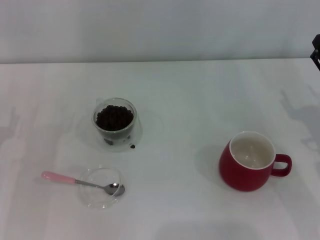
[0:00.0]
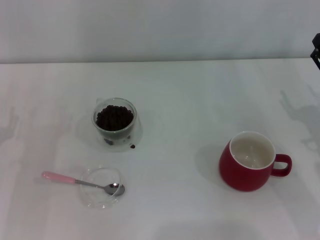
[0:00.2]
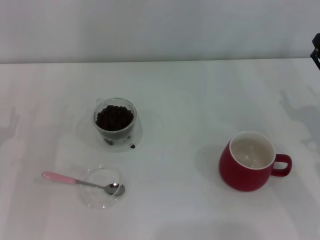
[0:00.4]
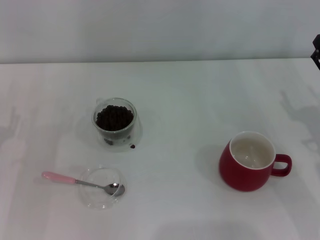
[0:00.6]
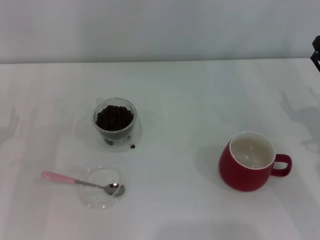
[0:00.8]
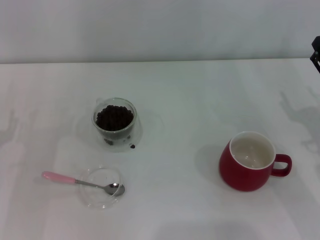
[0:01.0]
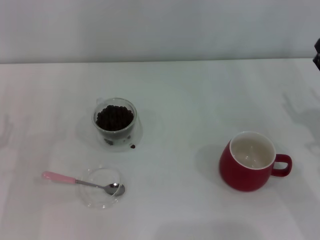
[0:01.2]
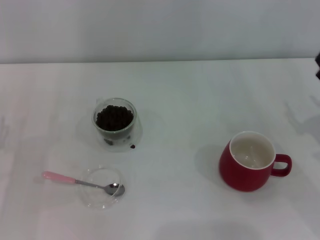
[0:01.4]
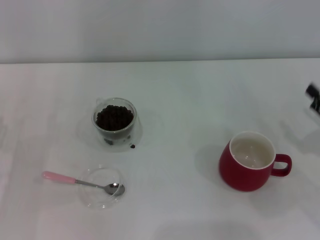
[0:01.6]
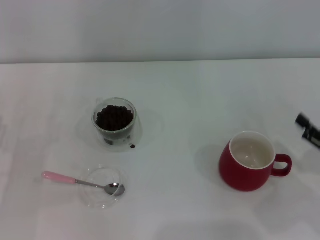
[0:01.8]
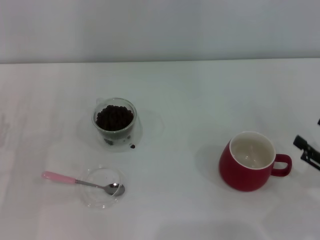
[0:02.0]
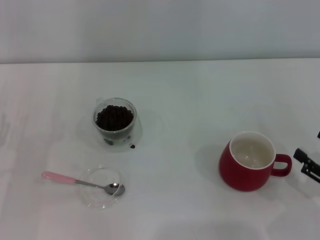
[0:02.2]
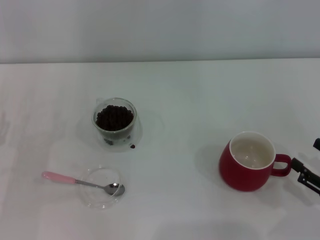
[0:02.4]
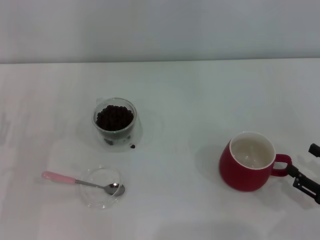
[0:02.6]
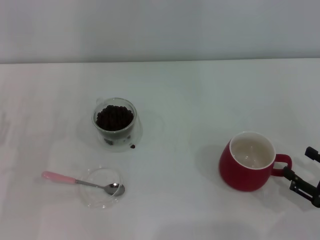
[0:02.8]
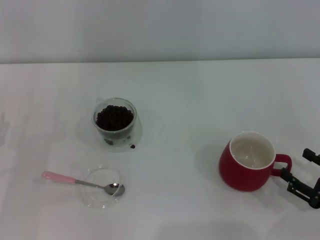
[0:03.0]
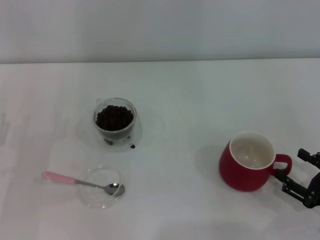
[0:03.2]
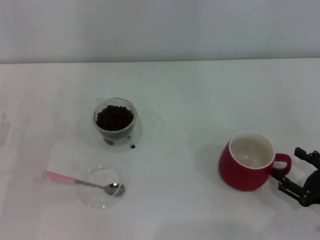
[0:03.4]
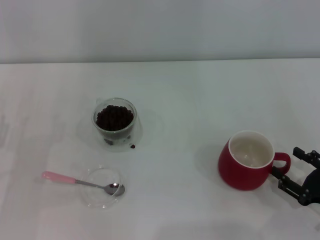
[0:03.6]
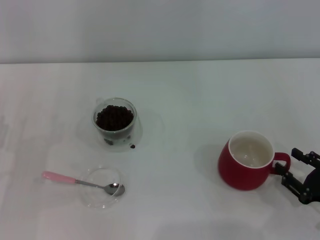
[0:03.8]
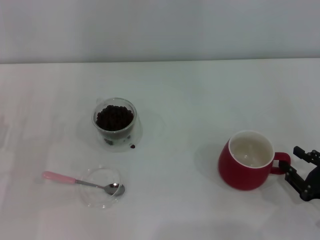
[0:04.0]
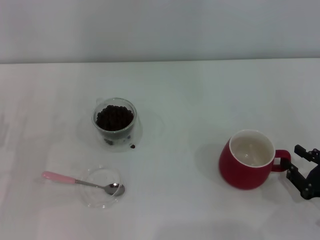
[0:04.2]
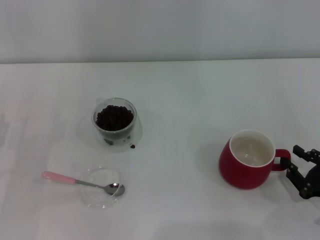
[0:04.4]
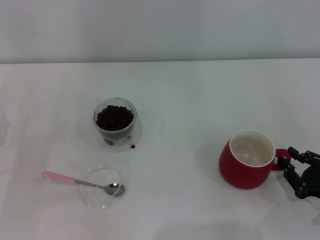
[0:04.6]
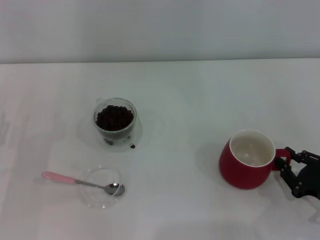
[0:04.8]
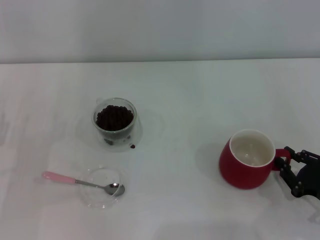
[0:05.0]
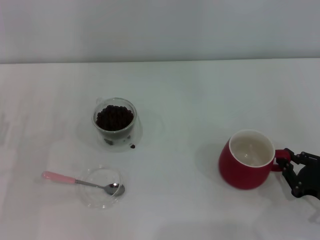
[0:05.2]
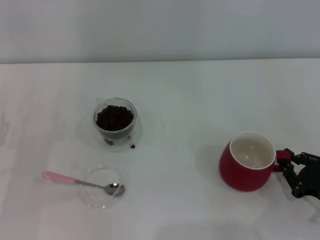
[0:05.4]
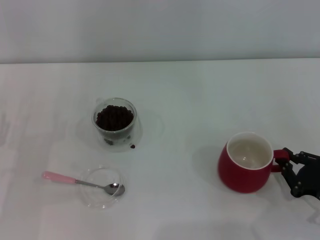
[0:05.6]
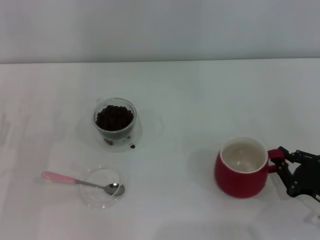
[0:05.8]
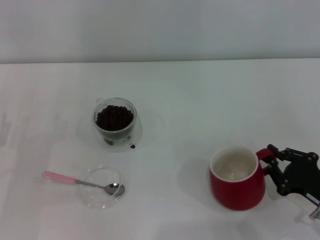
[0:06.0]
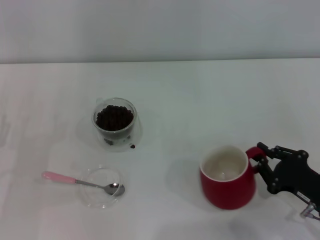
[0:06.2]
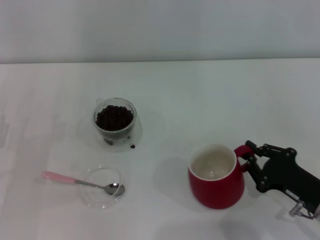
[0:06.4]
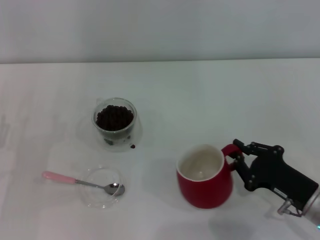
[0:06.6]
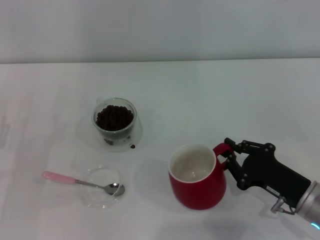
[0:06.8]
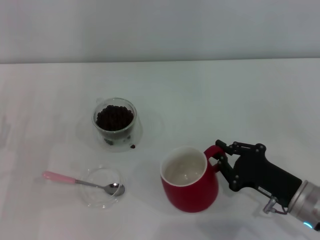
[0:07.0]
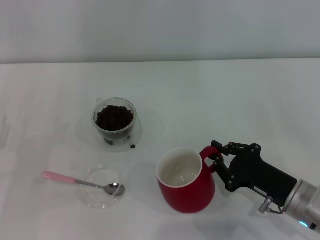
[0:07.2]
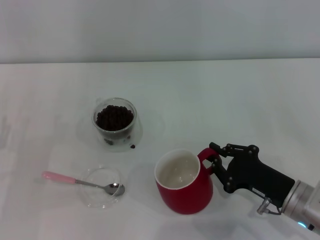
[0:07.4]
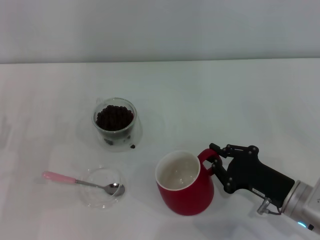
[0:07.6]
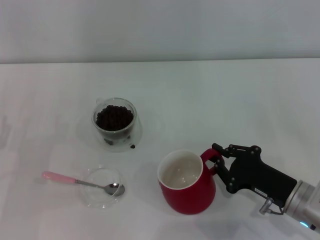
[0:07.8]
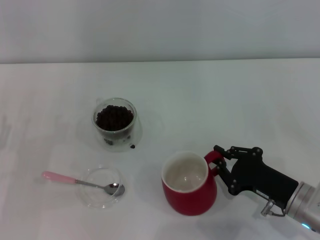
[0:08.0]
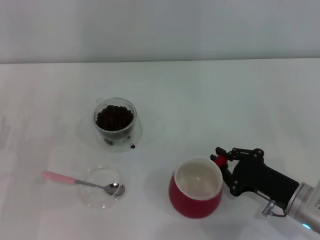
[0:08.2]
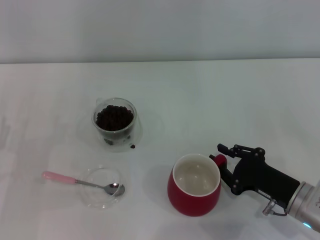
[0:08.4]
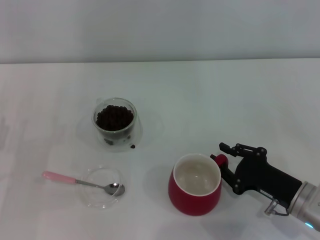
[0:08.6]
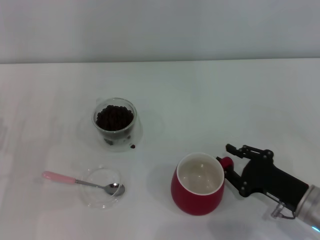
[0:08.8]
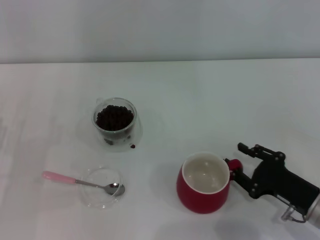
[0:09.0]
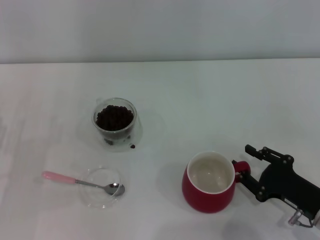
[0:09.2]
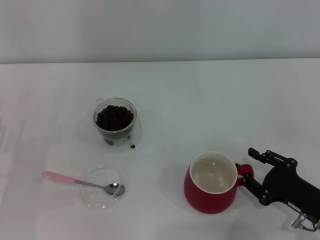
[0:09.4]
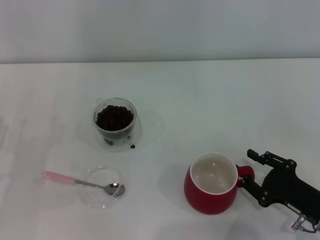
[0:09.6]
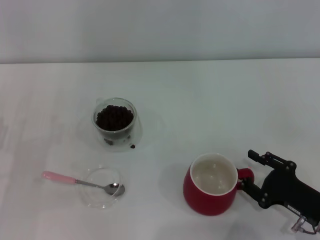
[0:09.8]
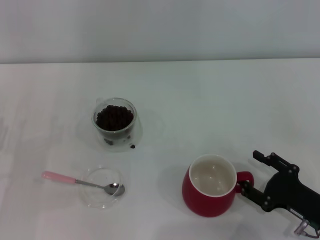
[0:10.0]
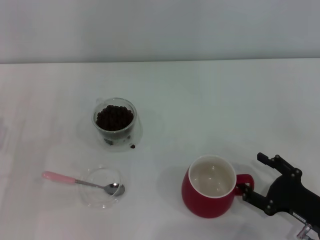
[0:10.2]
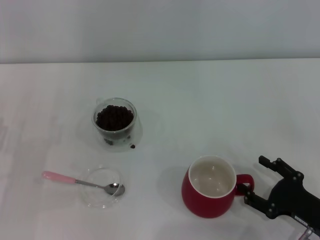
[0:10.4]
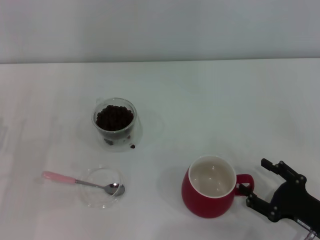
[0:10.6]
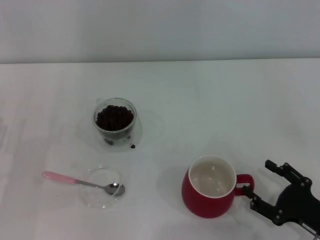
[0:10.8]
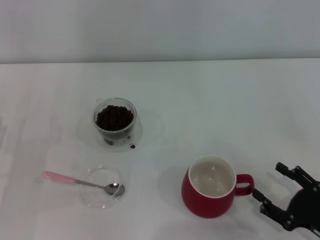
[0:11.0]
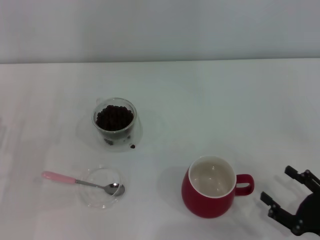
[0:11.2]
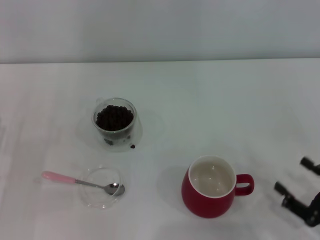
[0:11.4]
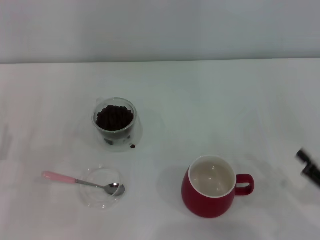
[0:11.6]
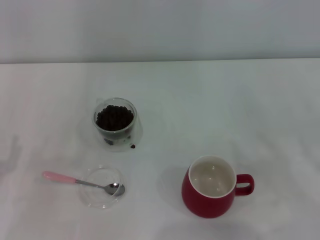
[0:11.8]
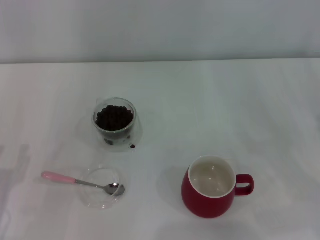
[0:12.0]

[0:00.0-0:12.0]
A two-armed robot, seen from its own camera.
Task of the whole recording: Use a pink spoon to take out the coffee beans from the glass and pour them into the red cup.
Step, 0:00.0 to 0:11.0: Move the cup to the center of view with the left gripper.
0:00.0 to 0:01.6: The right gripper changes place by about 5 cm.
0:01.6 to 0:03.0: The right gripper goes about 5 cm backward.
0:03.0 to 0:04.4: The right gripper closes up.
0:04.4 to 0:06.0: The right gripper closes its fingers.
0:06.0 to 0:07.6: The right gripper is displaced to the left by about 5 cm.
0:07.6 to 0:09.0: There are only small adjustments of the grippers.
0:09.0 to 0:10.4: The right gripper opens up.
0:10.4 to 0:12.0: The right gripper heads to the right and upward, covering roughly 10 cm.

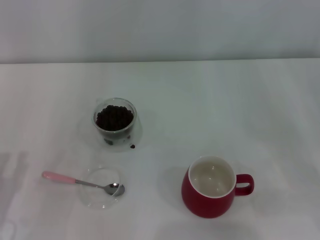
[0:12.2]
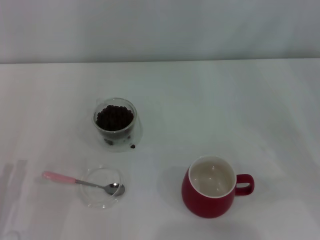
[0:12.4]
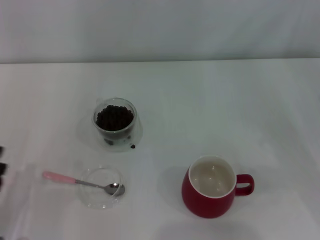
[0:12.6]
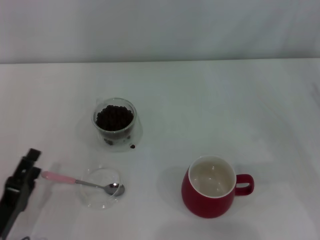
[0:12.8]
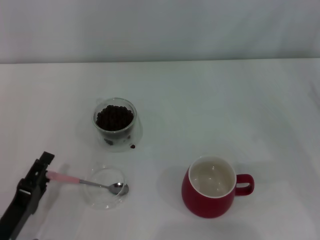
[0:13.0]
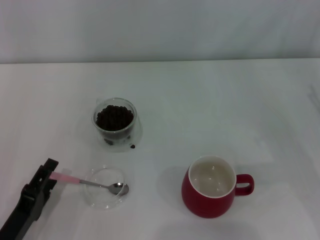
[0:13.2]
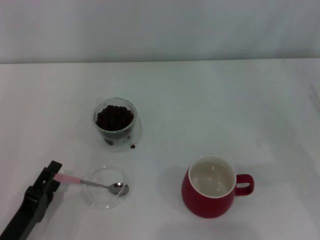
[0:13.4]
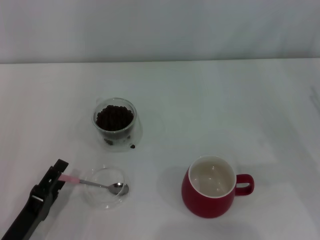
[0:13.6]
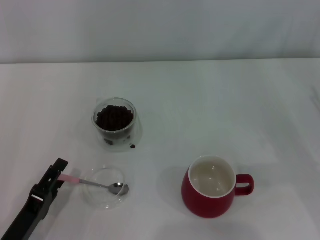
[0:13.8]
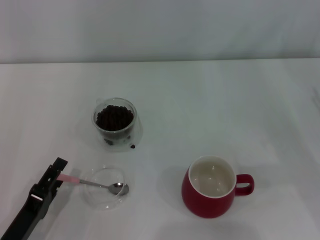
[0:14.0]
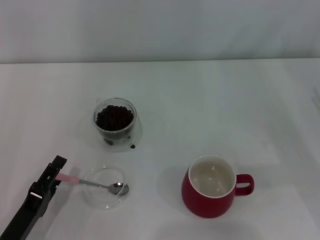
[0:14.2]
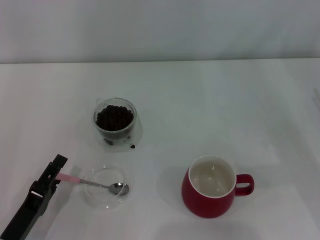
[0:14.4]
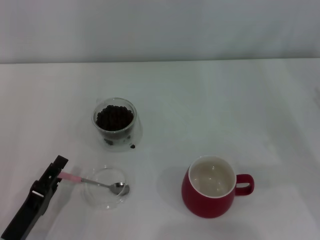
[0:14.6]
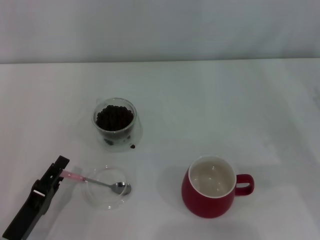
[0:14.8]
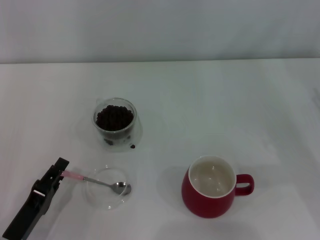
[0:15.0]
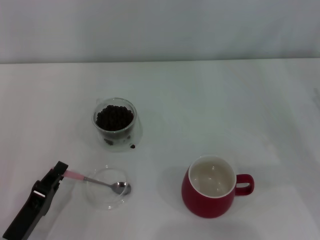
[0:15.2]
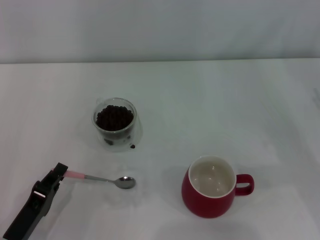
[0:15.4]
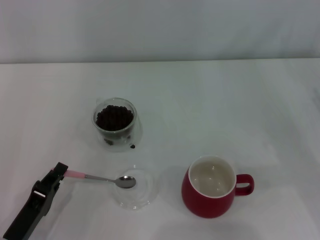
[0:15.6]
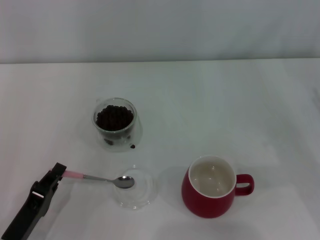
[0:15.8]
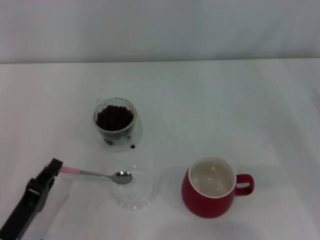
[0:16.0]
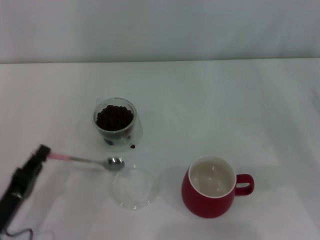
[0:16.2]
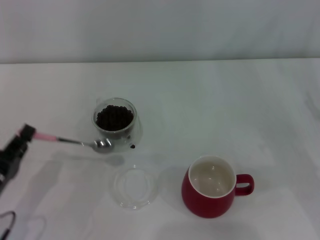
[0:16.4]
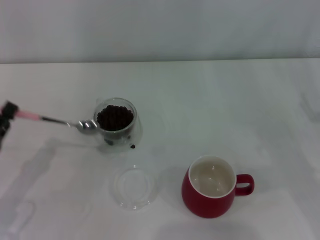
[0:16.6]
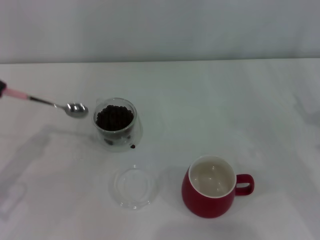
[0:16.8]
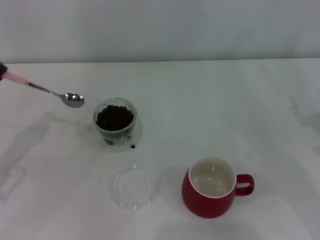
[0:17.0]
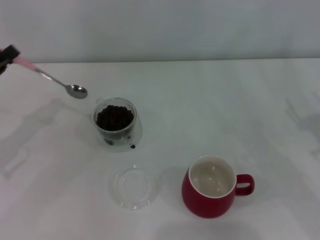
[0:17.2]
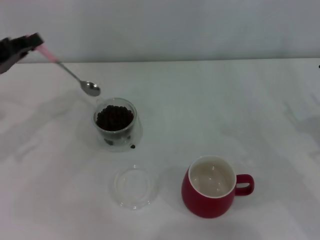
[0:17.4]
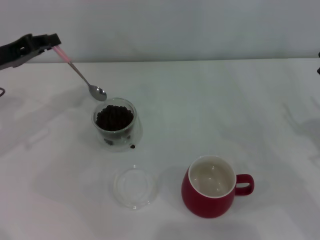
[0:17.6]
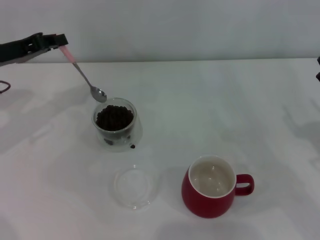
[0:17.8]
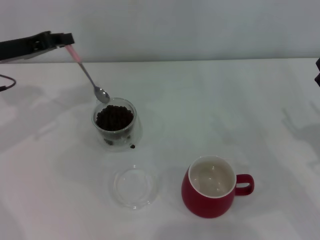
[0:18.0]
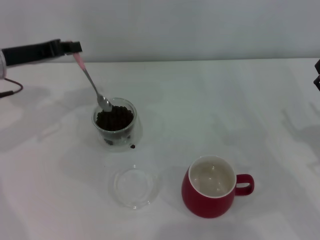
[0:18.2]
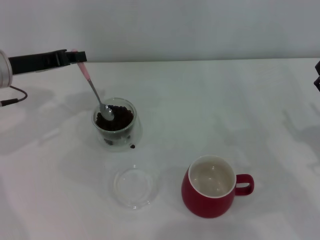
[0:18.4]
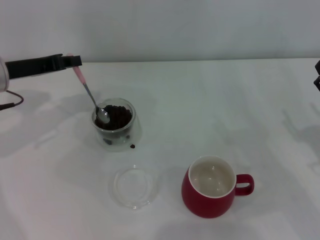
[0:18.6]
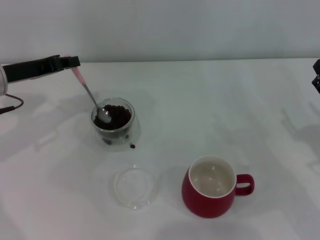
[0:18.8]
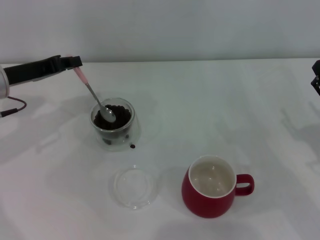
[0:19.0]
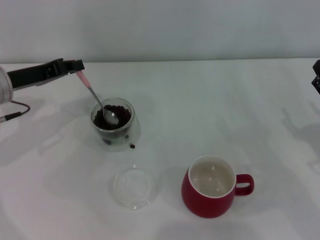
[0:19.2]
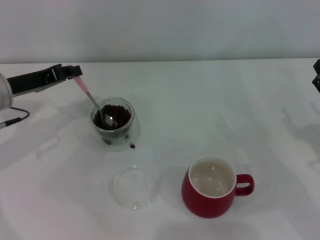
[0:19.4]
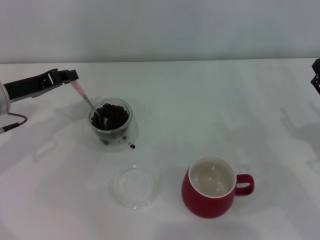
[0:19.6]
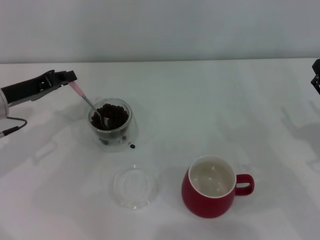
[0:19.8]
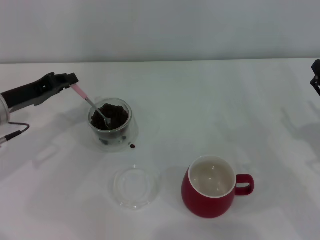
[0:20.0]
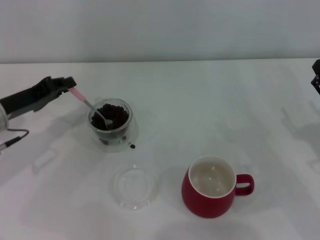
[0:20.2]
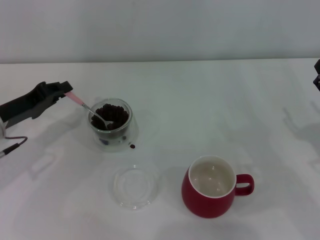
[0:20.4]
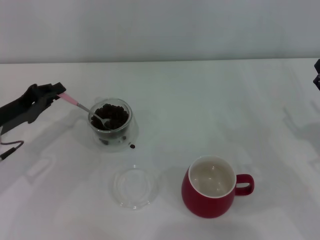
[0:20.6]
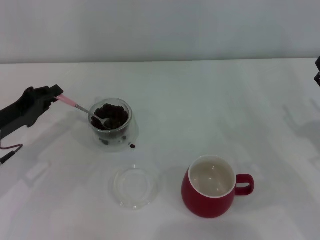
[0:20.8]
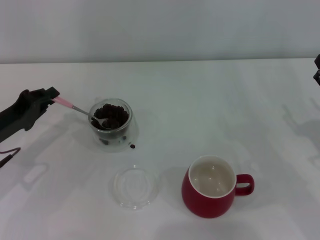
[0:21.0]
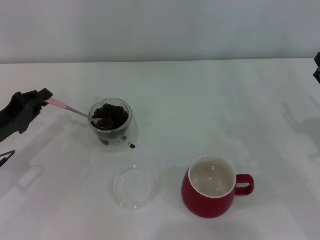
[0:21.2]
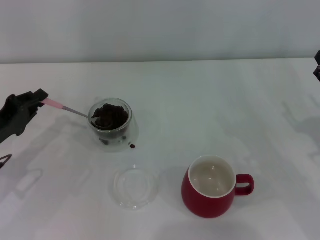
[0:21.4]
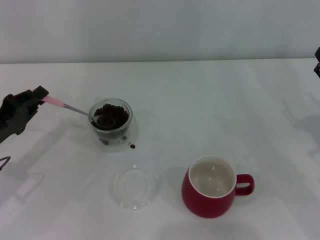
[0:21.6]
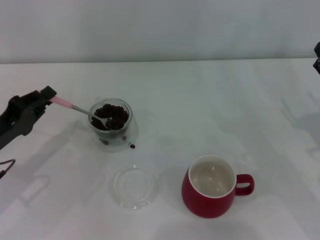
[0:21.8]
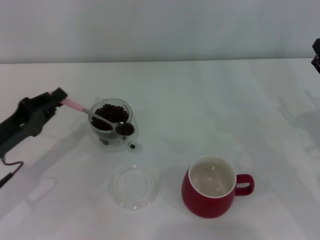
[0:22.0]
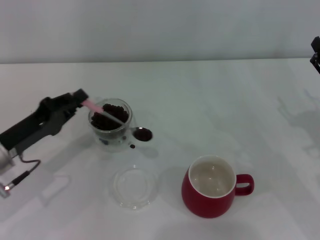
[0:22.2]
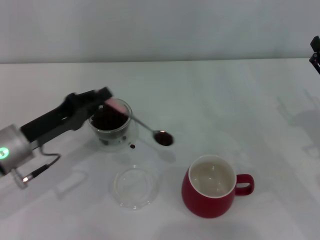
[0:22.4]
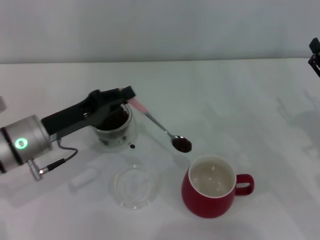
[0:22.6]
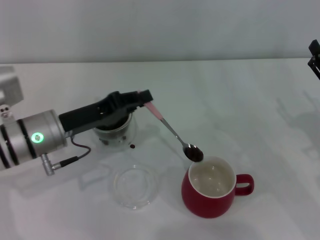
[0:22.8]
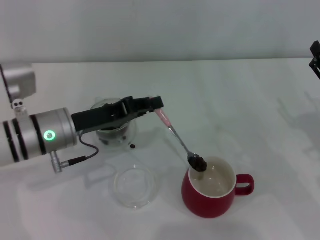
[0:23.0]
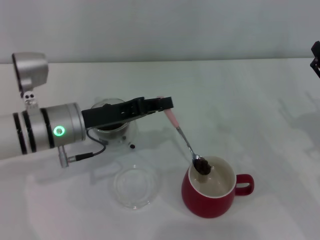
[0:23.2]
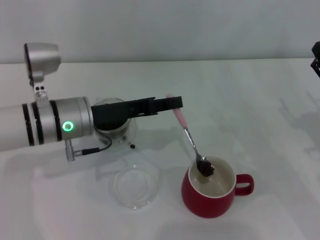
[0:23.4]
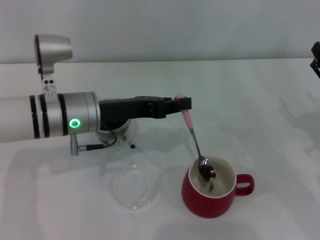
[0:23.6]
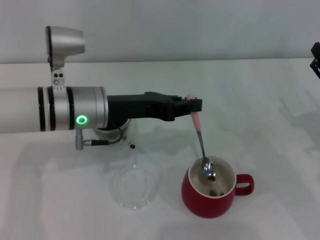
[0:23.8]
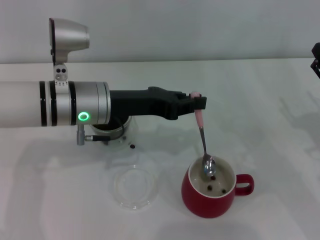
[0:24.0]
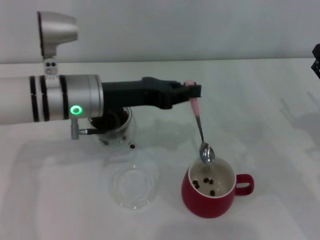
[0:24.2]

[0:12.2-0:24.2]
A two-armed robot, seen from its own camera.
Task of the whole recording: Use a pink spoon to take out the coffee beans from the glass and pour them into the red cup.
Step, 0:12.2 to 0:16.2: Pick up the spoon with the right gripper.
0:12.2 to 0:13.8: The left gripper is displaced to the right by some 5 cm.
0:13.8 to 0:15.2: The left gripper closes up.
0:15.2 to 0:16.6: The left gripper heads to the left and upward, covering approximately 10 cm, and closes its fingers.
0:16.6 to 0:18.2: The left gripper shifts approximately 25 cm forward and upward.
0:18.2 to 0:19.8: The left gripper shifts roughly 5 cm downward.
0:19.8 to 0:21.2: The left gripper moves backward, approximately 5 cm.
0:21.2 to 0:22.6: The left gripper shifts roughly 10 cm to the right.
0:22.6 to 0:24.2: The left gripper heads to the right and upward, covering roughly 10 cm.
